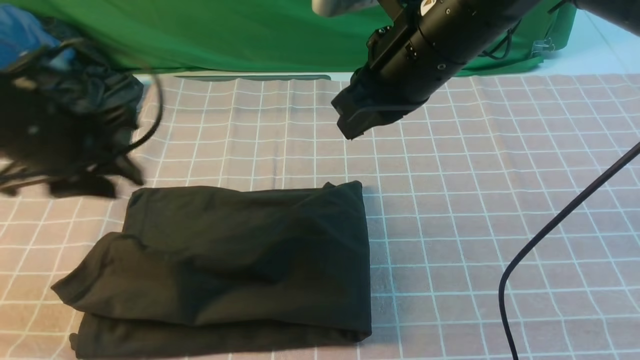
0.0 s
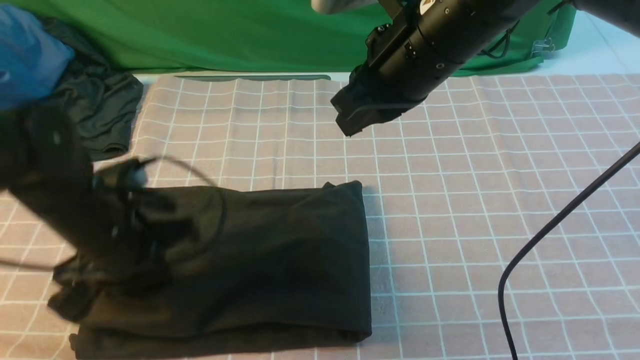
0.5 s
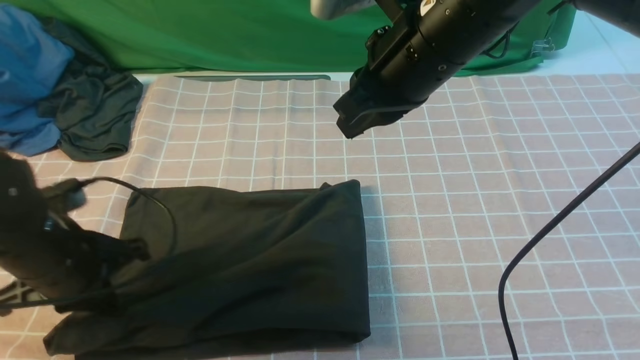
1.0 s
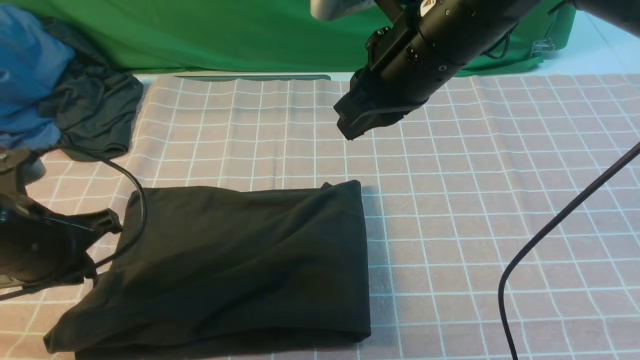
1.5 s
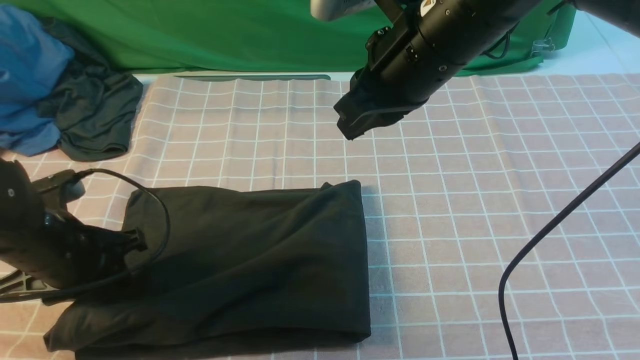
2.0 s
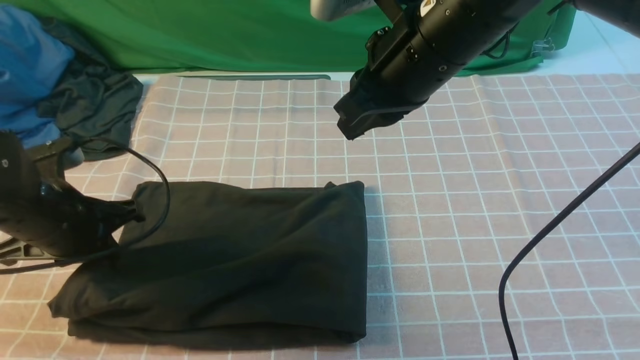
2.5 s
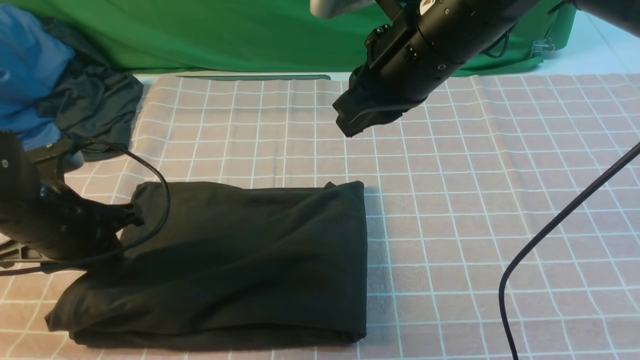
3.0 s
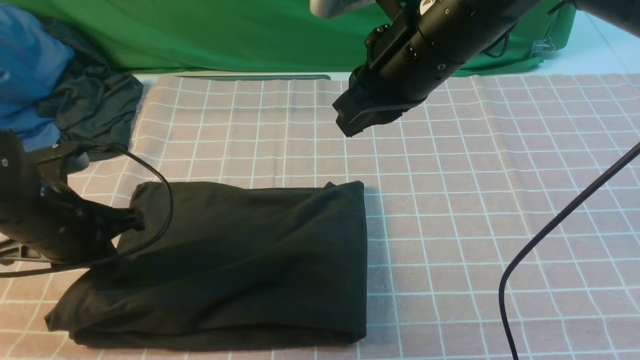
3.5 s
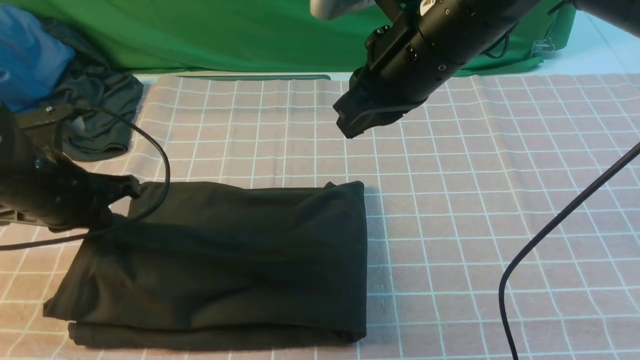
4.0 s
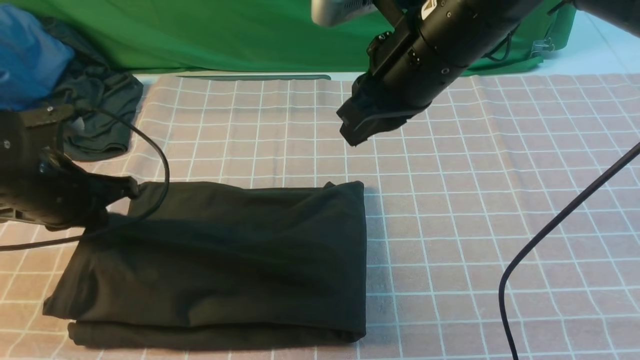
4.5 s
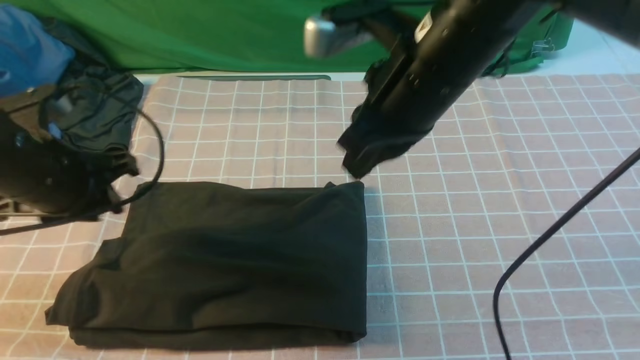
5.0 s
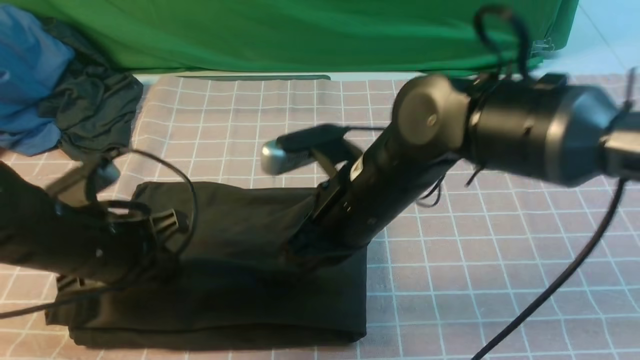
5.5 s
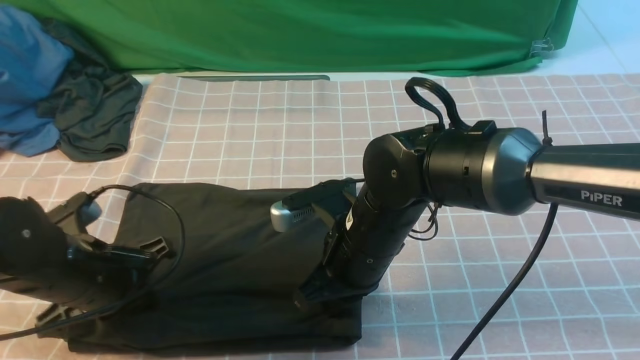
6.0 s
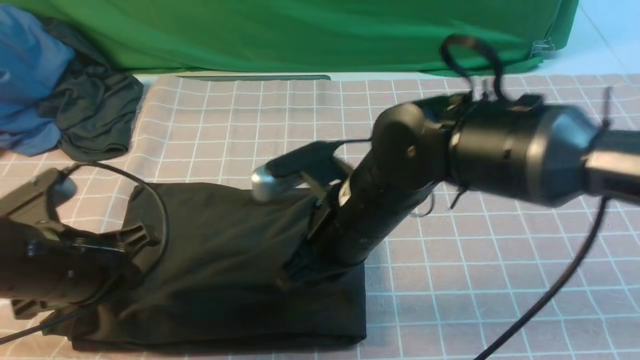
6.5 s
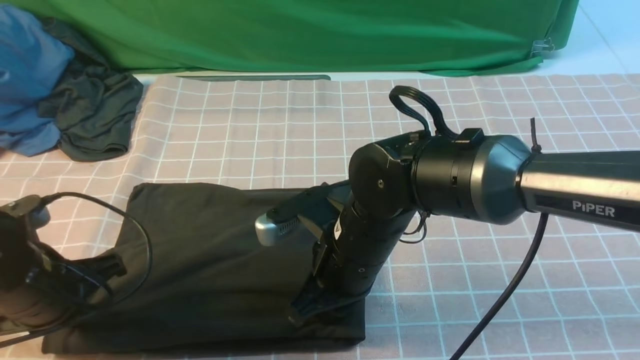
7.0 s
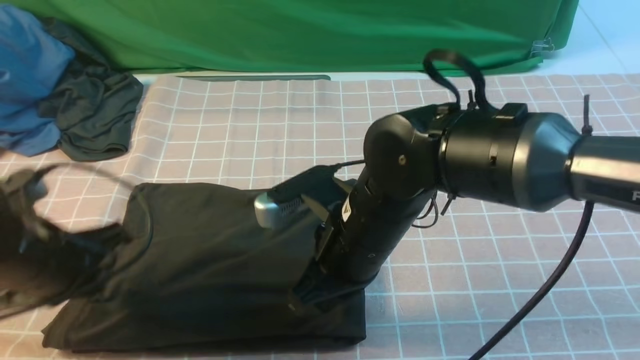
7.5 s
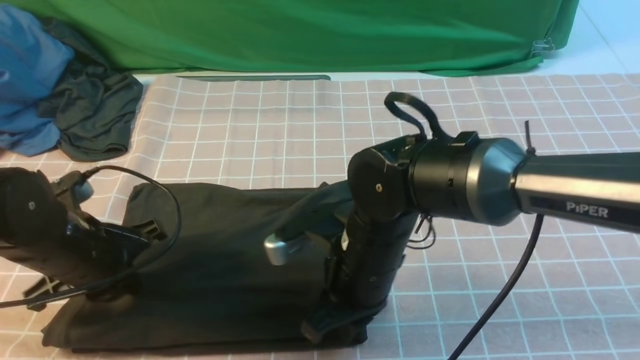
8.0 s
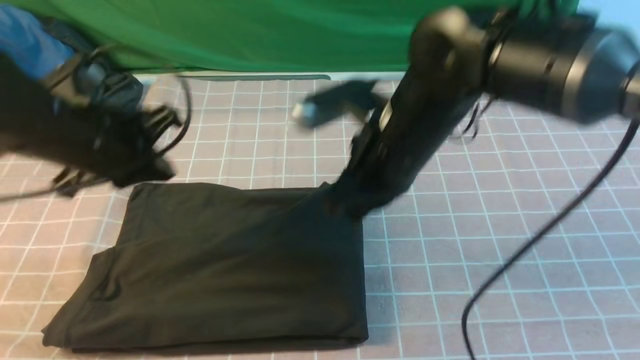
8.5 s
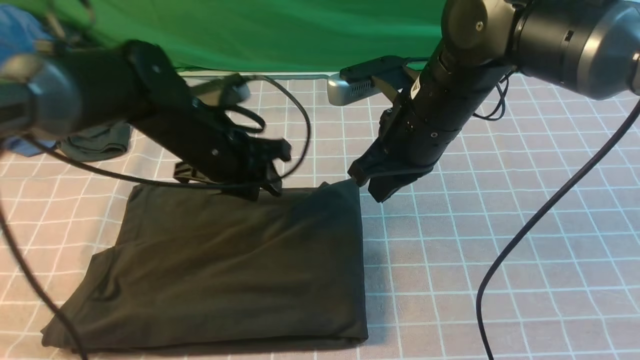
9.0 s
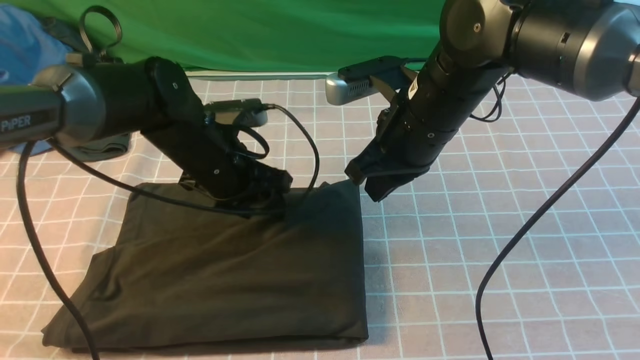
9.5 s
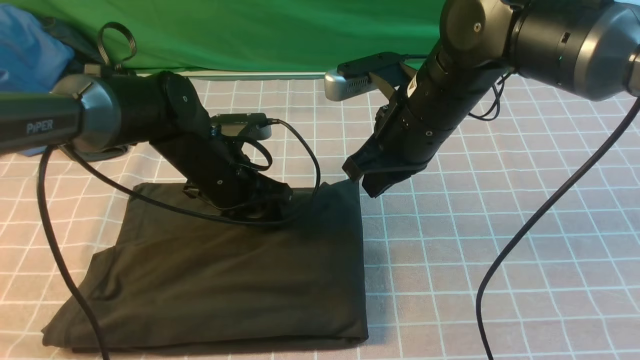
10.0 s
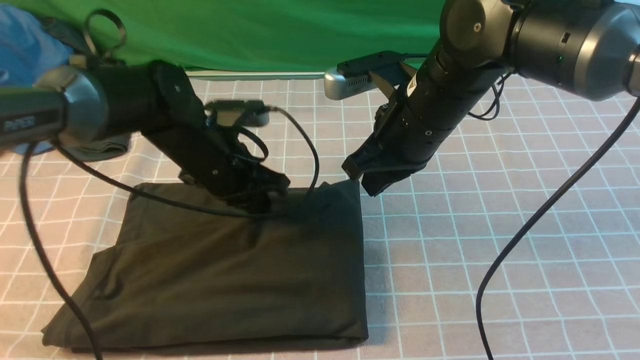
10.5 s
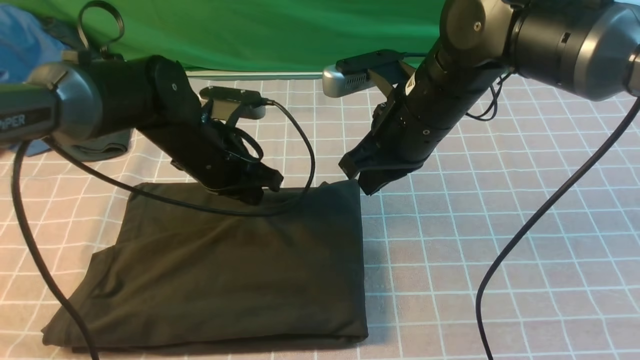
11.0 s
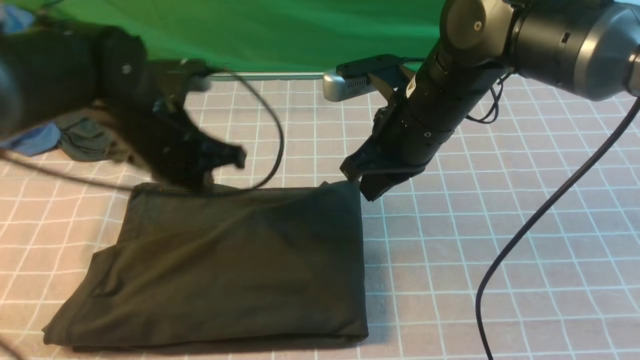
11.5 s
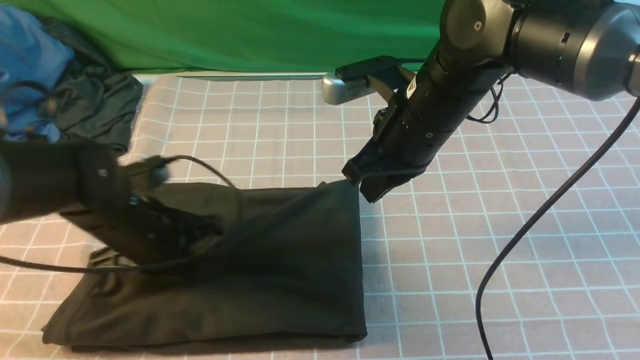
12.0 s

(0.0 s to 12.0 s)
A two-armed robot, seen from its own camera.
0.0 s - 2.0 s: The left gripper heads downward, covering about 10 cm, and closes and opens again.
2.0 s - 4.0 s: The left gripper changes place by some 5 cm, and closes its fingers.
4.0 s - 6.0 s: The left gripper travels backward by about 5 cm. The right gripper shifts about 15 cm downward.
6.0 s - 8.0 s: The grippers move only a little.
8.0 s - 10.0 s: The right gripper moves upward, forward and to the right, about 15 cm. Meanwhile the left gripper travels forward and to the right by approximately 15 cm, and opens its fingers.
10.0 s - 12.0 s: The left gripper goes roughly 10 cm backward and to the left, and closes up.

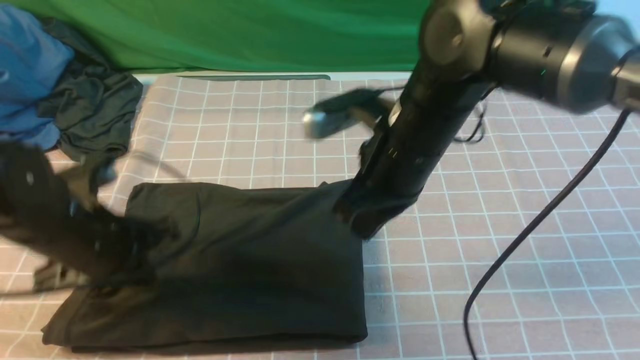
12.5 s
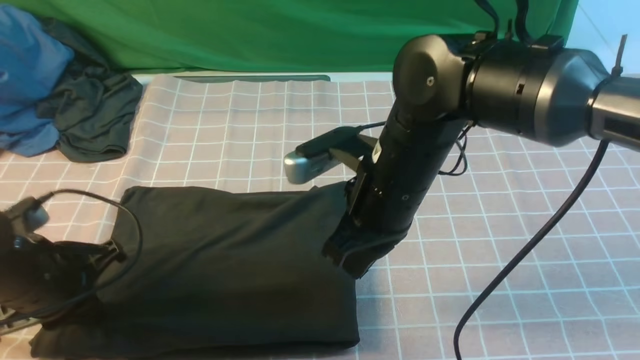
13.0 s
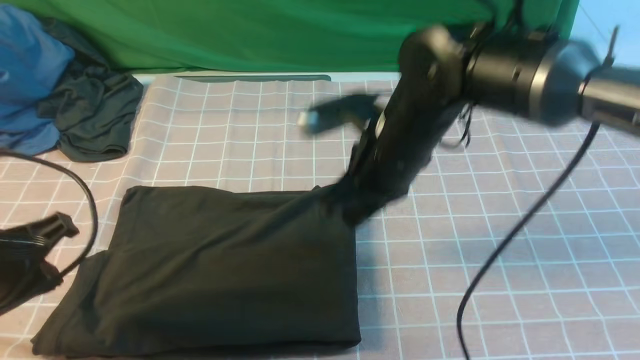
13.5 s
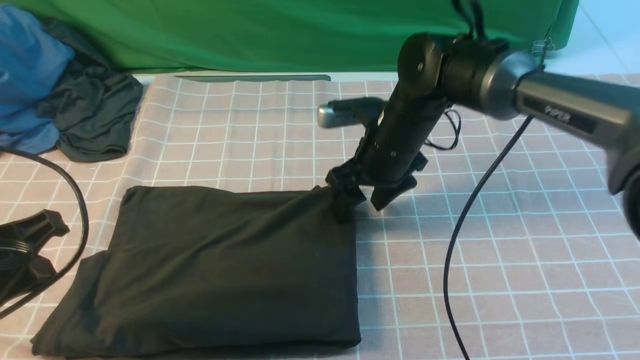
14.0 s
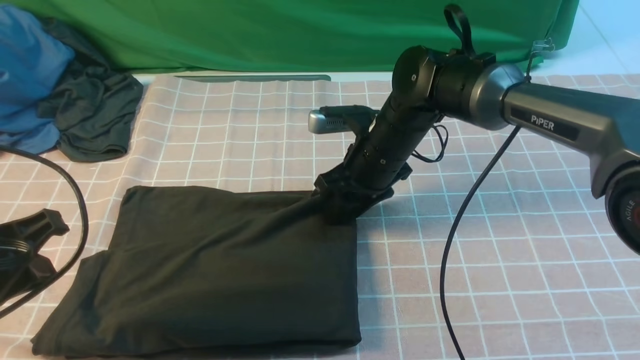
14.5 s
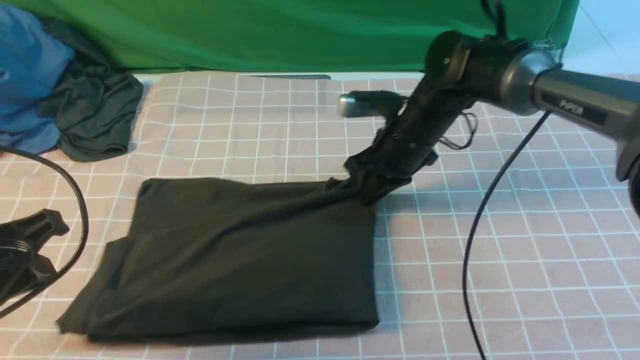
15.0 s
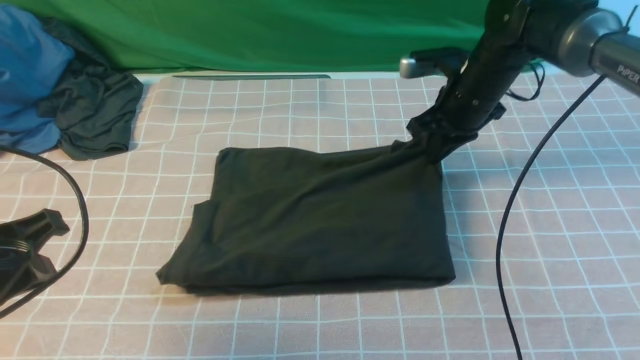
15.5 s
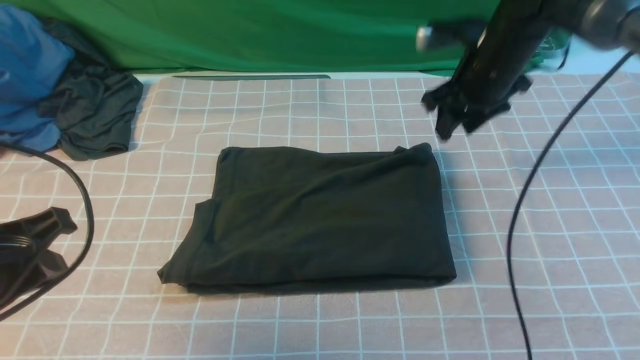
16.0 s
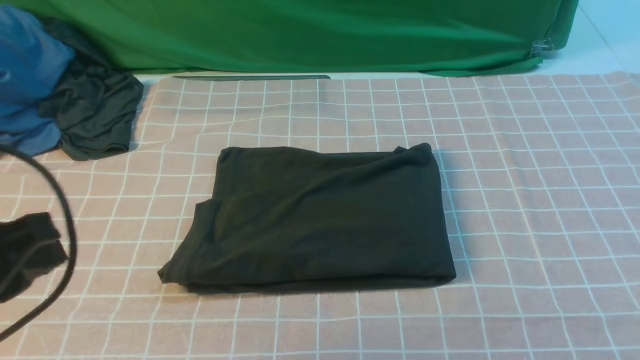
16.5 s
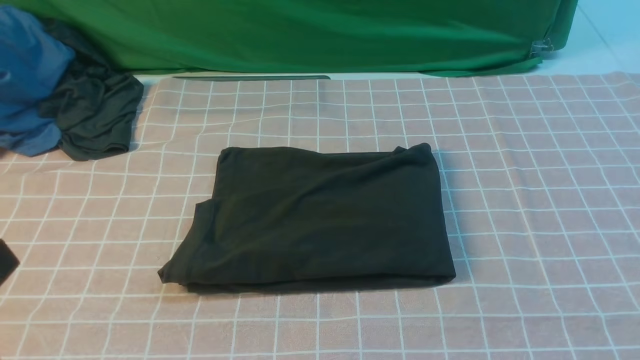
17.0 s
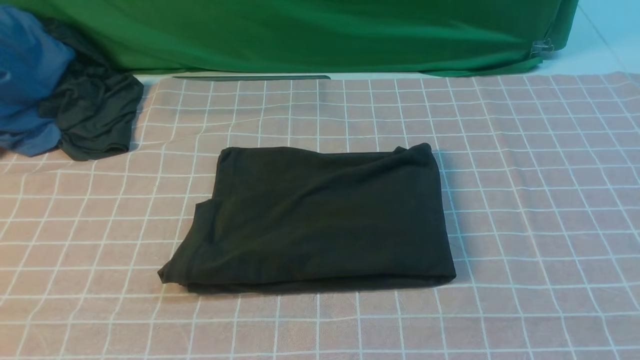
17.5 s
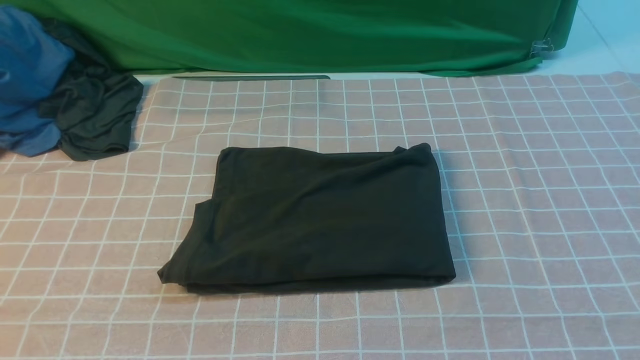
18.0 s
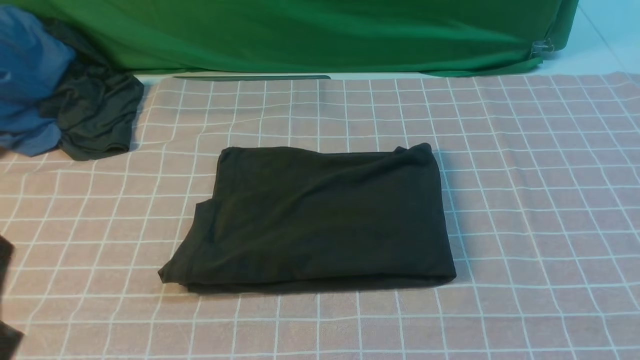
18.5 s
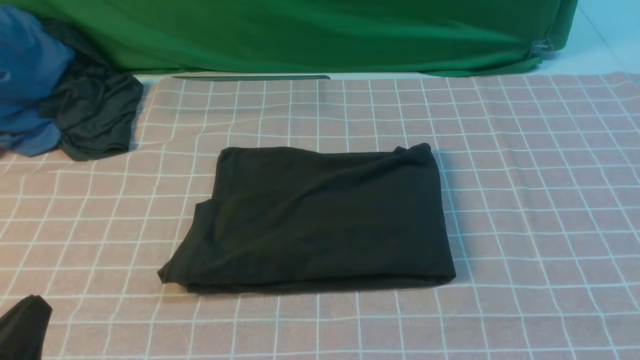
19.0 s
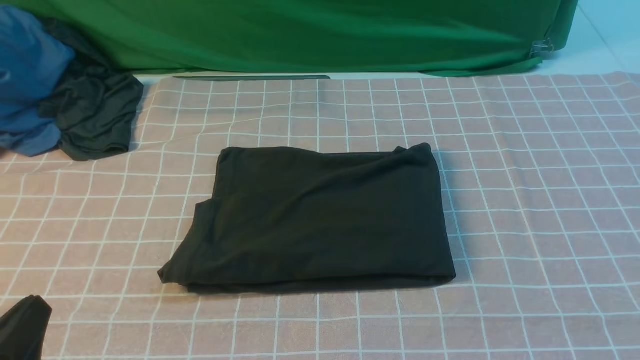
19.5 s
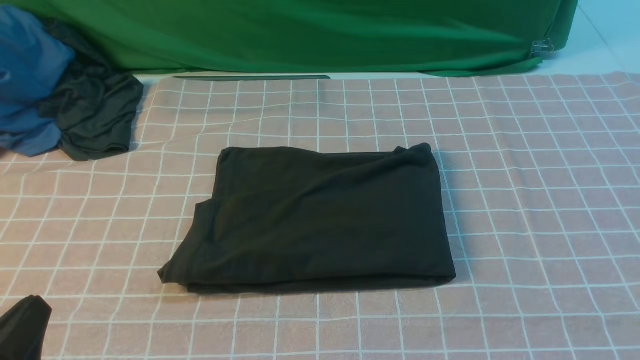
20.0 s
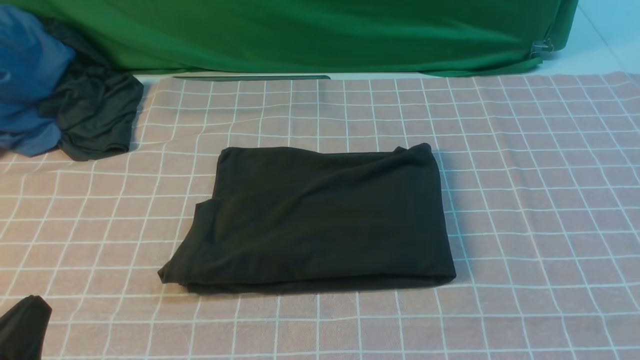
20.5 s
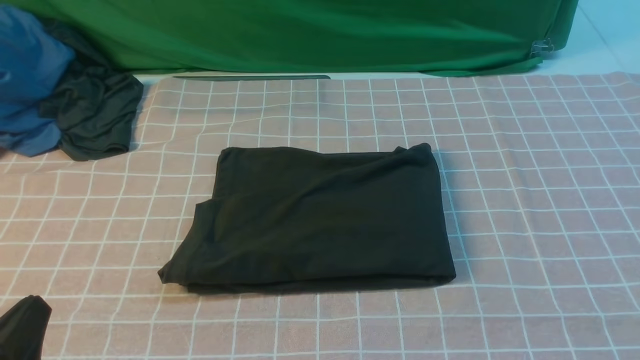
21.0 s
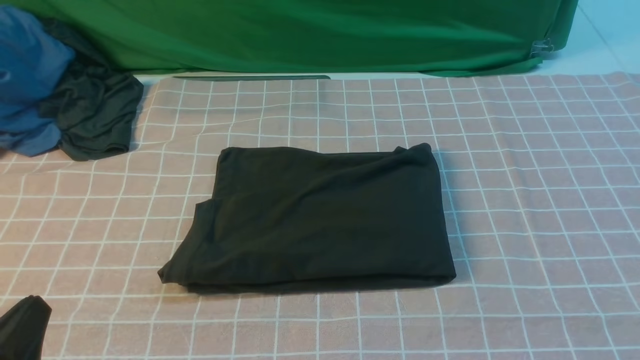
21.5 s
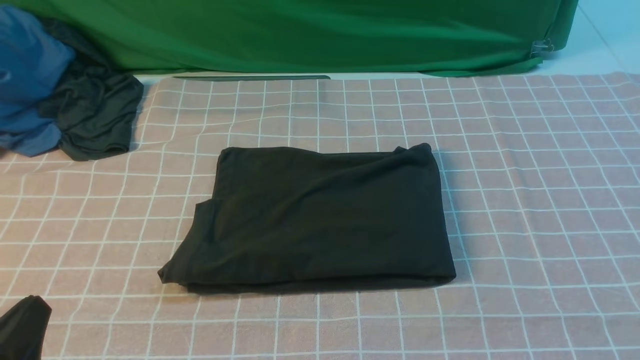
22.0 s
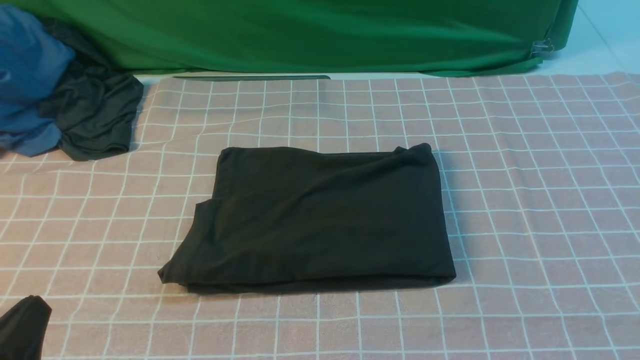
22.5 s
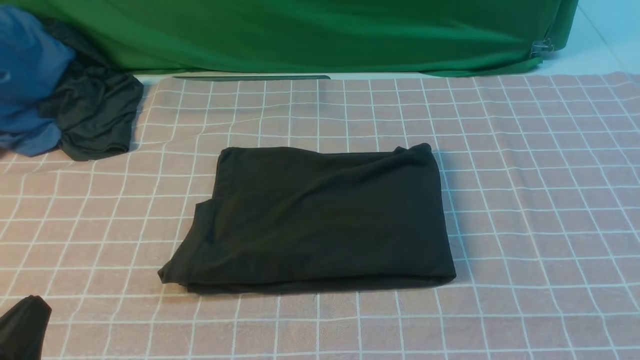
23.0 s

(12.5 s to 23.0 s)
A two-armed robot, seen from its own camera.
12.5 s - 14.5 s: The right gripper heads forward and downward, covering about 15 cm, and opens its fingers; the left gripper is displaced backward and upward by some 10 cm.
14.5 s - 16.5 s: The left gripper changes place by roughly 5 cm; the right gripper is displaced upward, to the right and backward by roughly 40 cm, and closes its fingers.
16.5 s - 19.0 s: The left gripper shifts roughly 15 cm downward and backward.
21.0 s - 23.0 s: Both grippers stay about where they are.
